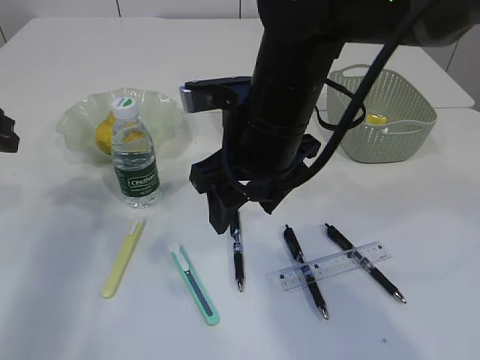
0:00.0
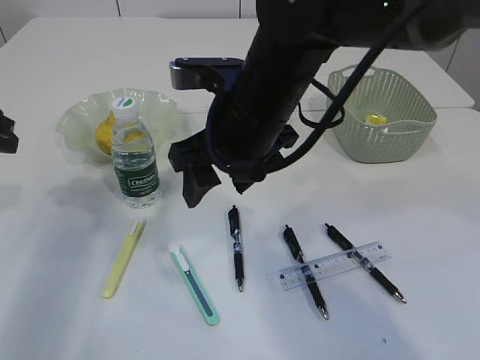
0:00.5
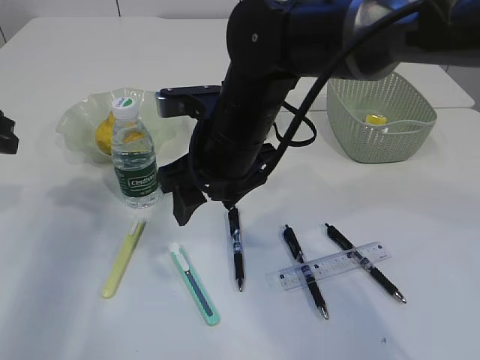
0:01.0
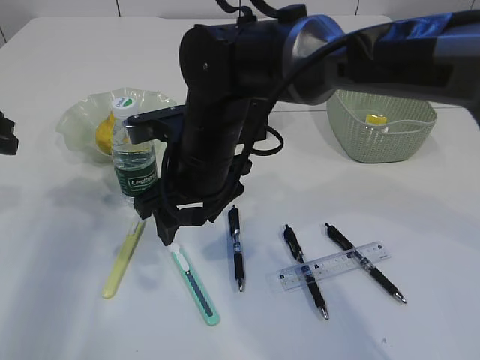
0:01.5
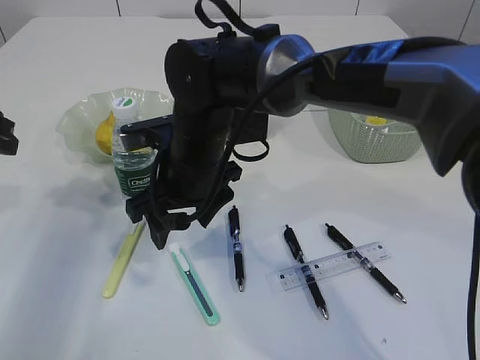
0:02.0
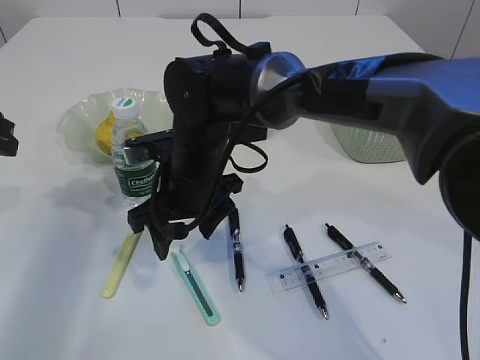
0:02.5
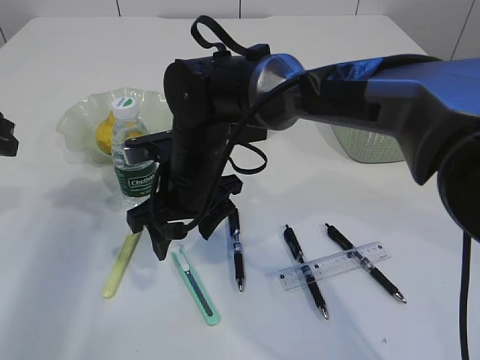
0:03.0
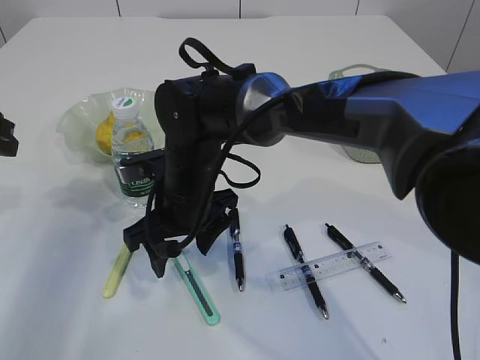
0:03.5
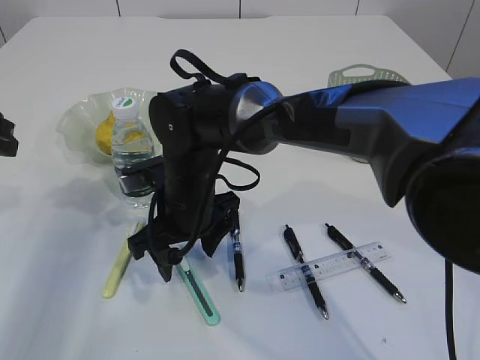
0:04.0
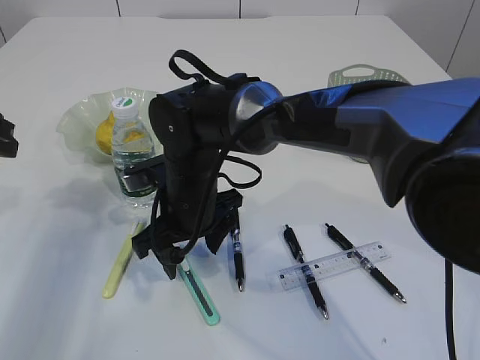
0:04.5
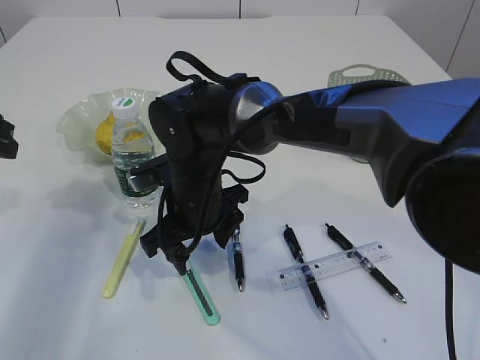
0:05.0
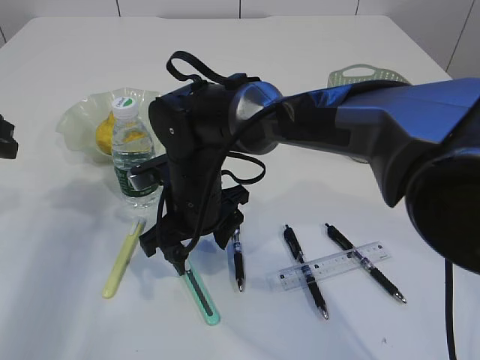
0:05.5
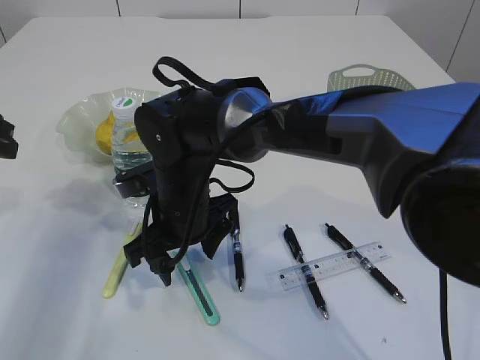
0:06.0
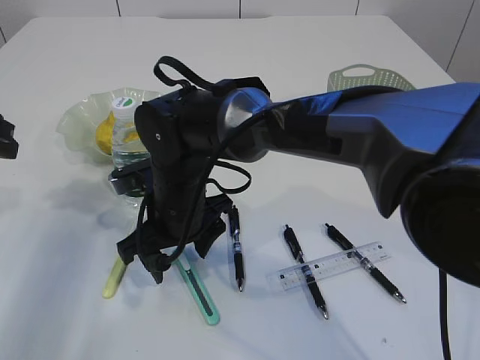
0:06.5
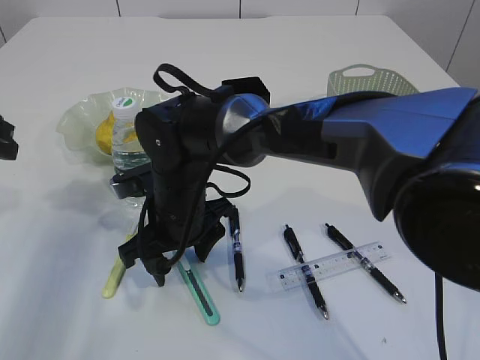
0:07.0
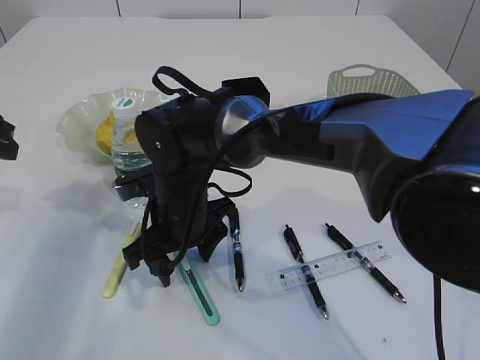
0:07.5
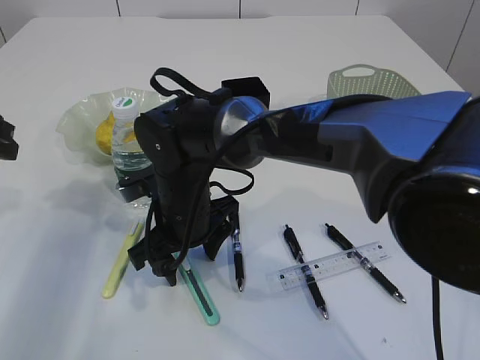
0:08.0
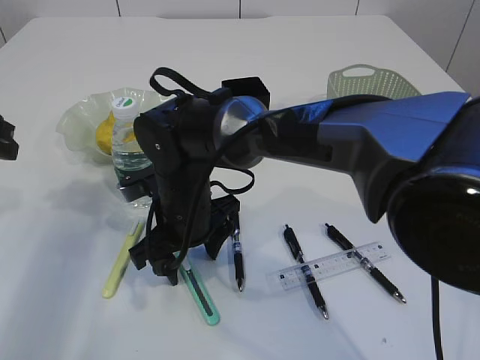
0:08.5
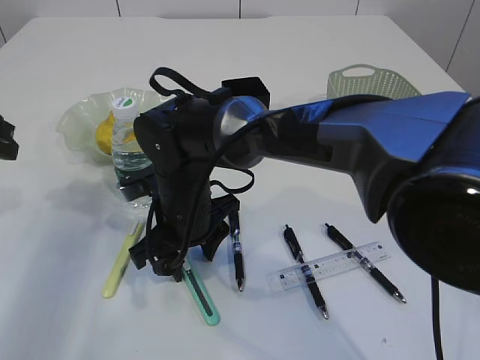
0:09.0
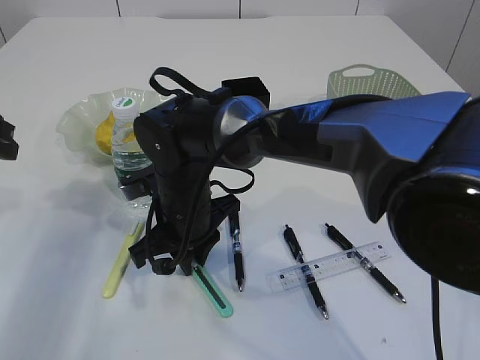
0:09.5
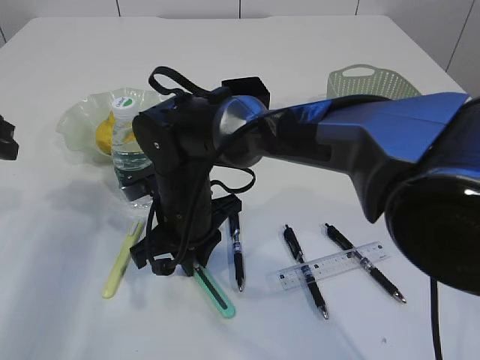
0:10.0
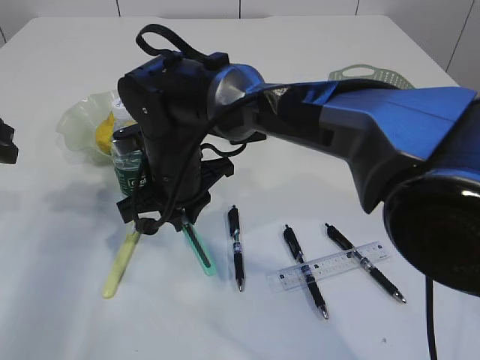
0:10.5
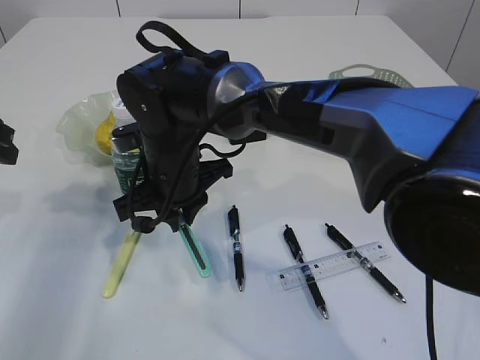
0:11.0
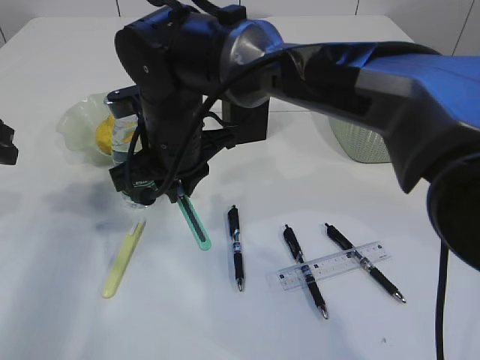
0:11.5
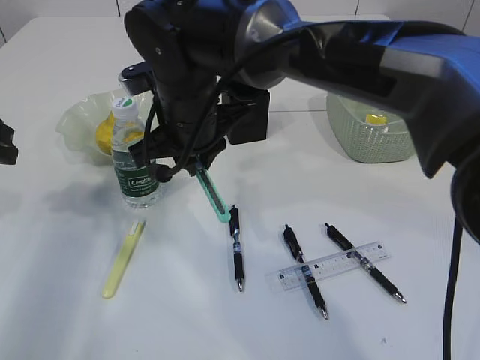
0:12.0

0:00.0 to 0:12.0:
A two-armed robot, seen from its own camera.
Step, 0:00.0 to 0:11.5: pick up the blue knife.
0:00.0 to 0:02.0: The right gripper heads to the left and downward, covering roughly 10 cm.
0:04.0 to 0:06.0: There are only small adjustments of the grippers.
0:06.0 to 0:08.0: Both grippers stay about where they are.
0:08.0 to 0:10.0: The right gripper closes up.
0:10.0 to 0:12.0: The right gripper travels upward by some 10 cm.

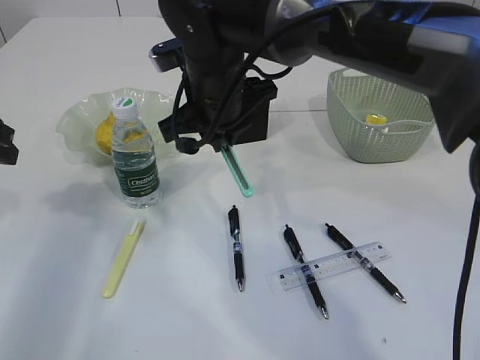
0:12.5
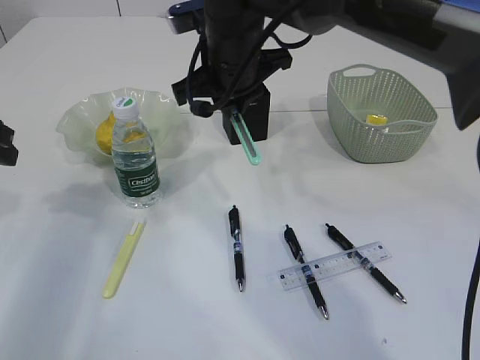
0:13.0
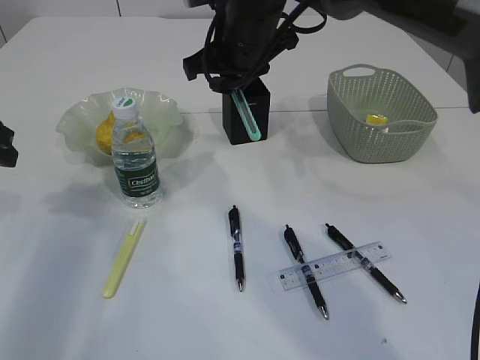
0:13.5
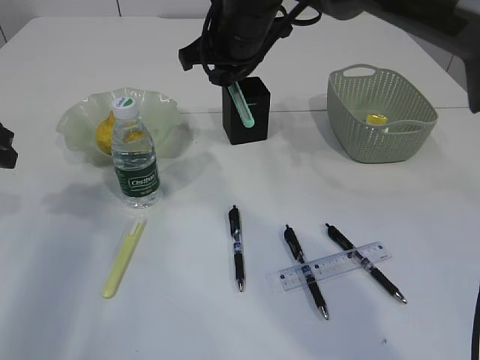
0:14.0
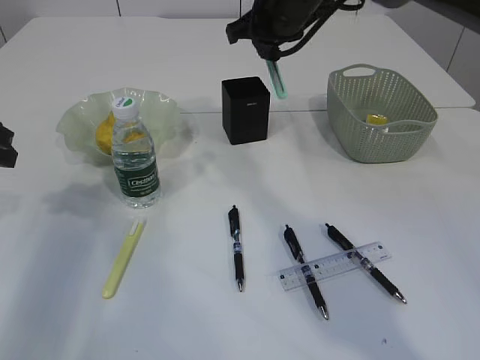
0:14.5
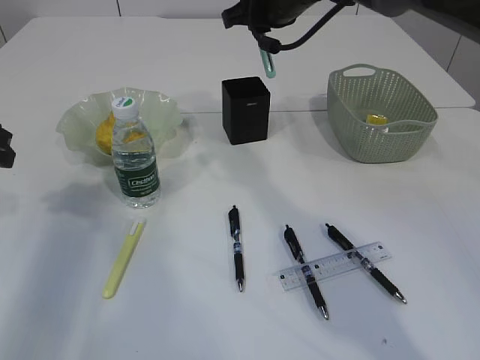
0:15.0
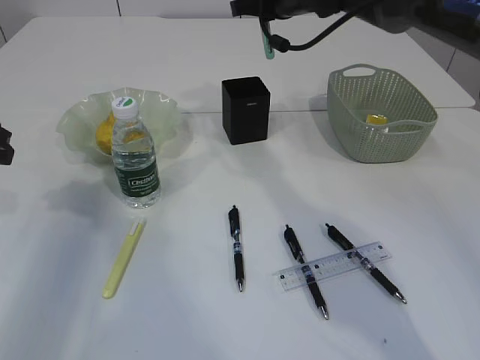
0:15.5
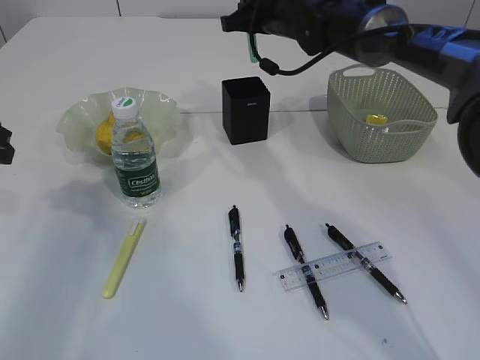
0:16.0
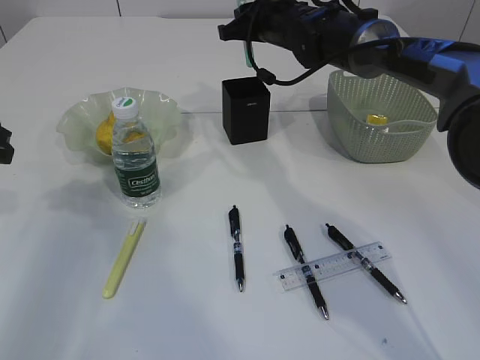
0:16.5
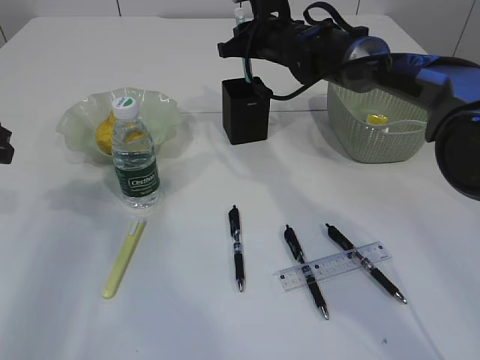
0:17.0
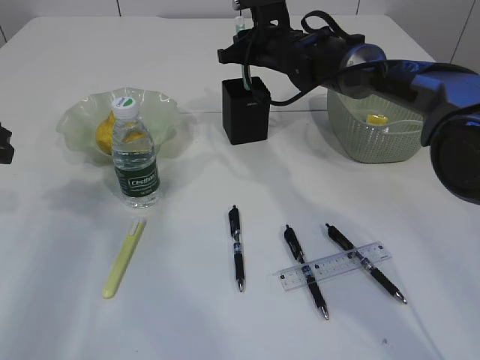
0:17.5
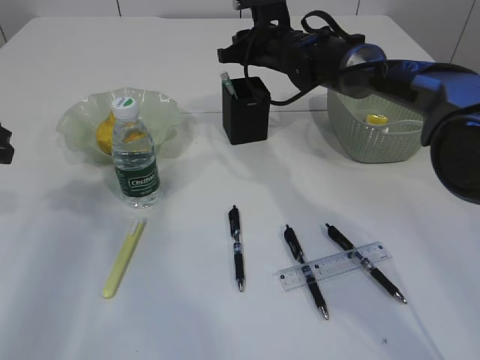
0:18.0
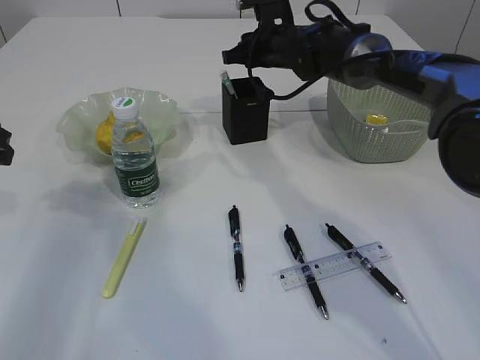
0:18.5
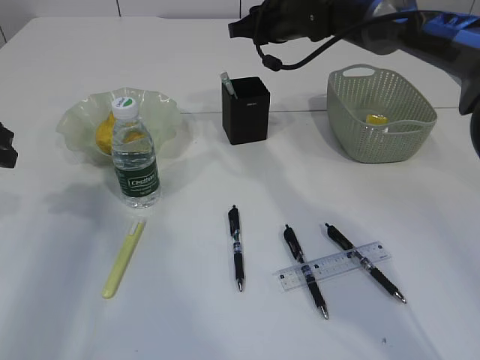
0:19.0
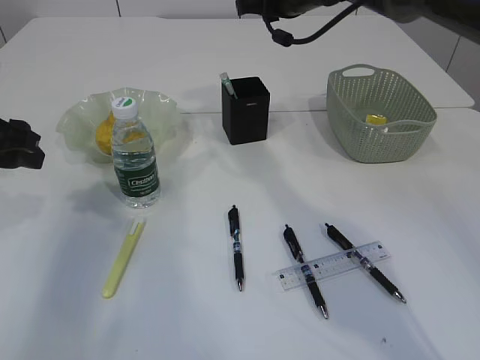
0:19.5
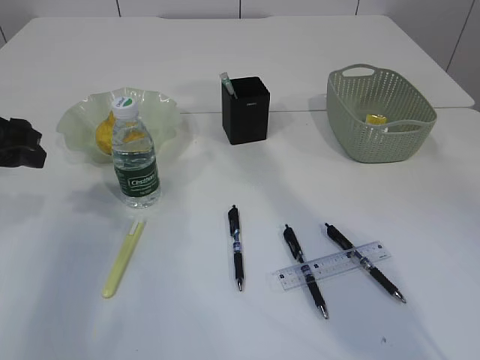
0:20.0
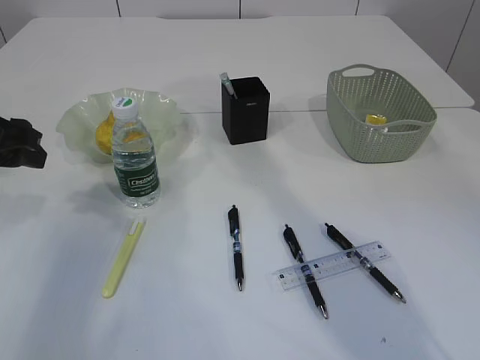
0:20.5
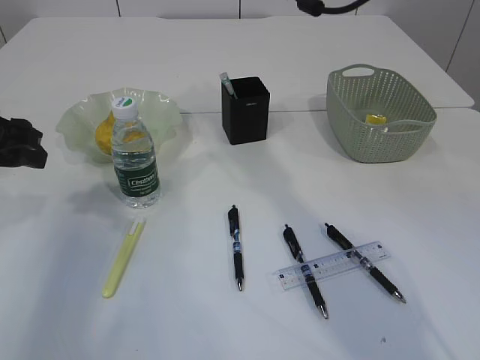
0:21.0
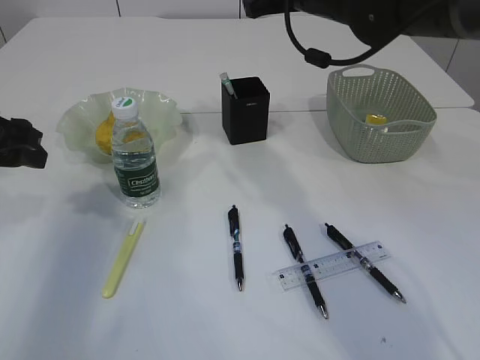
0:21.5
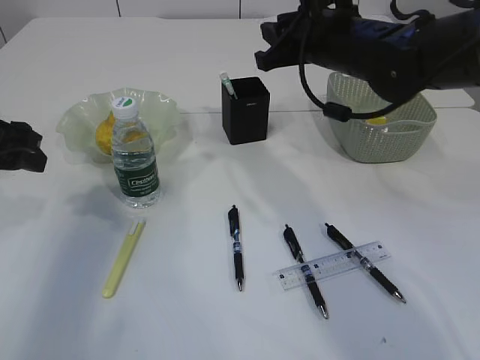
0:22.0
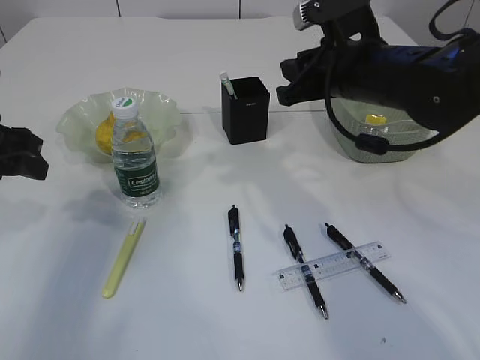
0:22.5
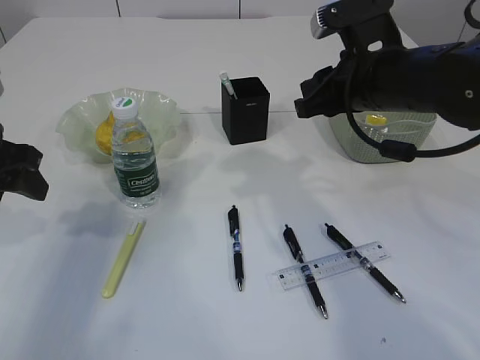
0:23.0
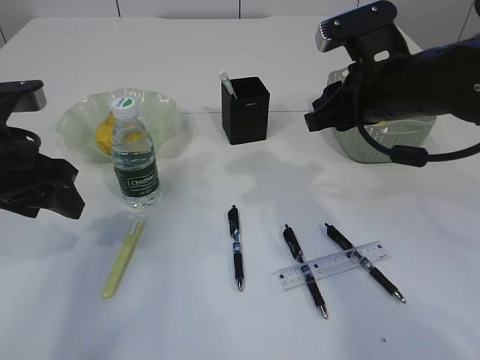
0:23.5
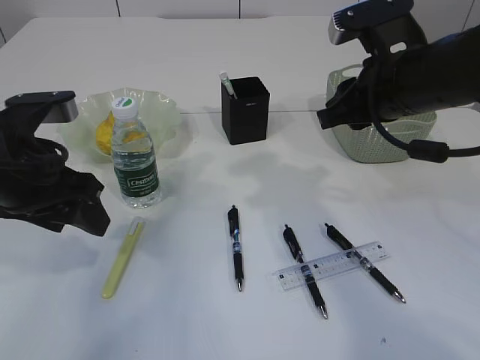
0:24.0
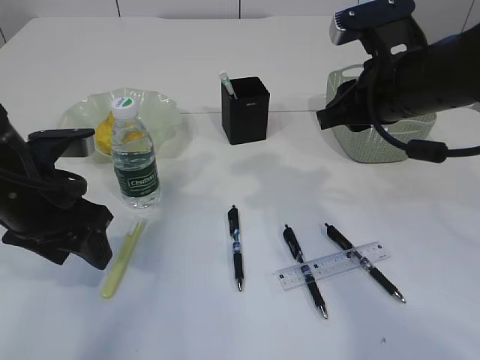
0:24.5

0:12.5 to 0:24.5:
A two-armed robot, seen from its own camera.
Step, 0:12.5 to 0:20.0: Place the blue knife into the pen holder.
0:12.5 to 0:14.5: The right gripper goes approximately 15 cm to the right, forward and upward.
0:14.5 to 0:16.5: The right gripper goes some 10 cm forward and downward.
0:16.5 to 0:18.5: There are only small adjustments of the grippers.
0:18.5 to 0:20.5: The right gripper shifts approximately 20 cm upward.
0:20.5 to 0:22.5: The right gripper travels downward and backward by approximately 20 cm.
0:22.5 to 0:24.5: The right gripper is displaced backward by approximately 5 cm. Meanwhile the left gripper shifts about 10 cm to the right.

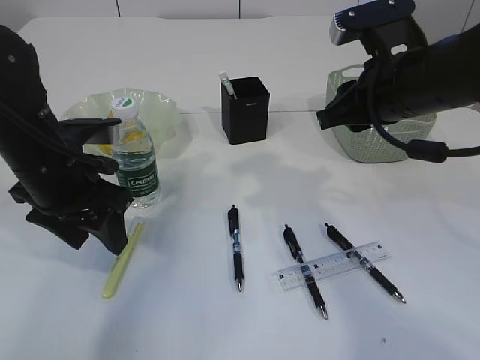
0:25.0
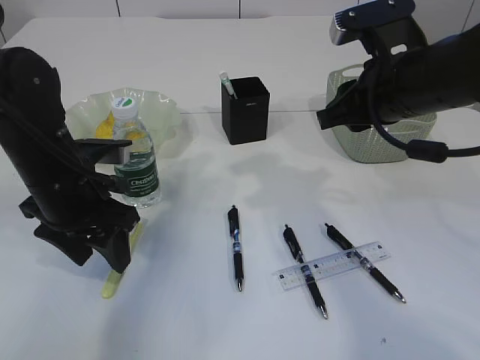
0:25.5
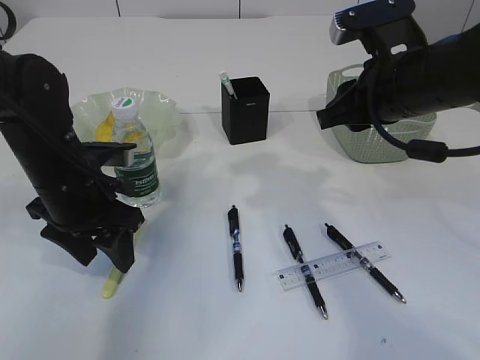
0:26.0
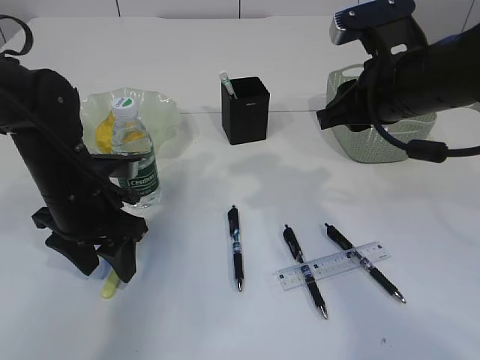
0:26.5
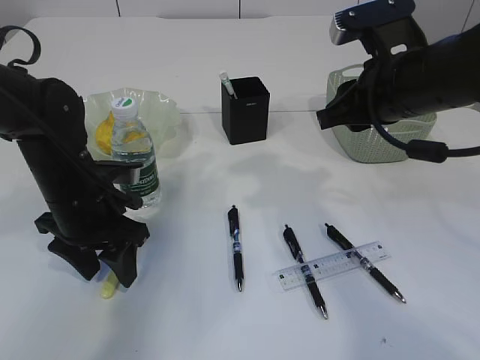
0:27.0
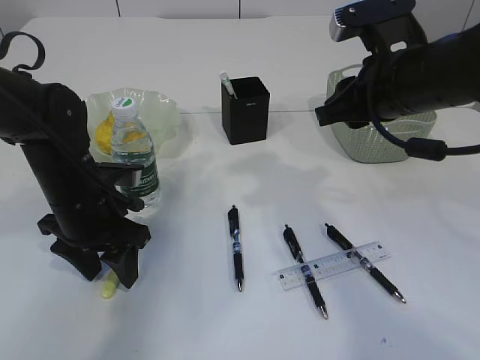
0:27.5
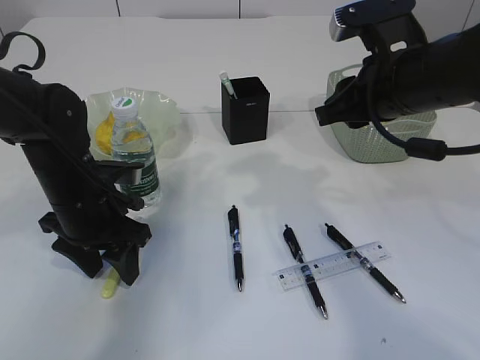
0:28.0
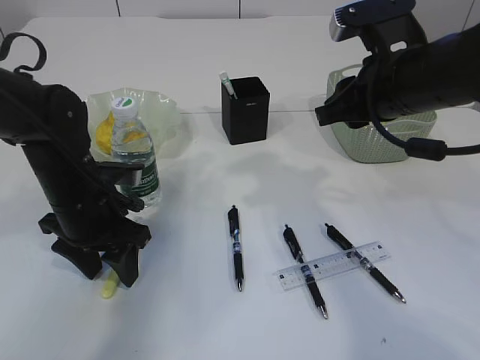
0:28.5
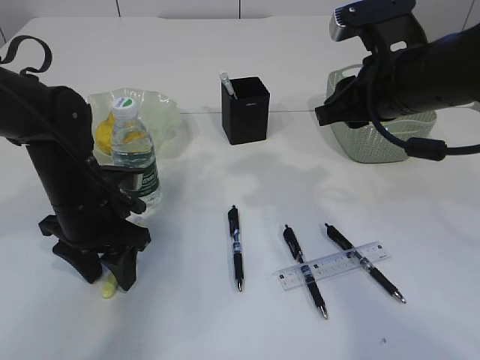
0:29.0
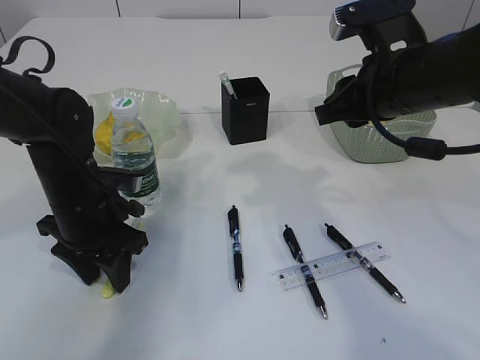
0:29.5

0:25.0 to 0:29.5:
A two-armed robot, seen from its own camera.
0:25.0 to 0:27.0: The left gripper shifts roughly 5 cm downward.
0:27.0 to 0:29.5: The grippers move only a little.
